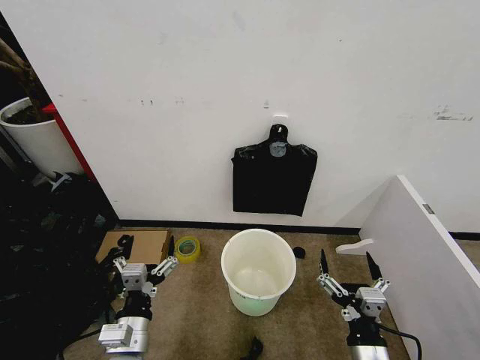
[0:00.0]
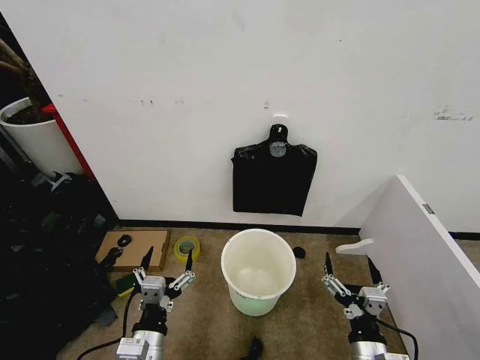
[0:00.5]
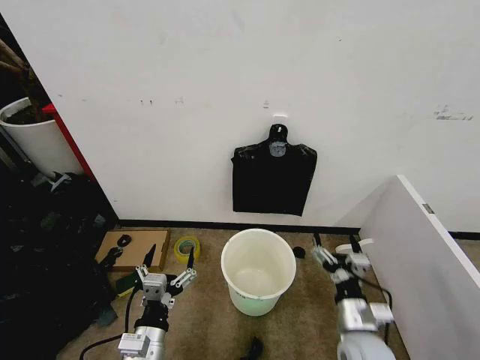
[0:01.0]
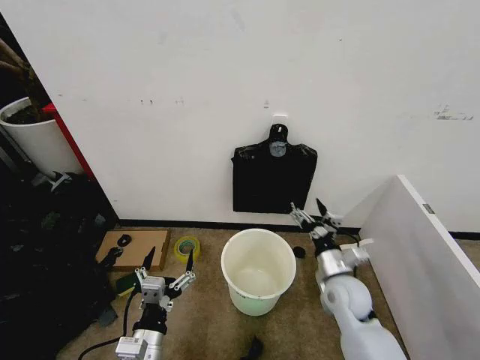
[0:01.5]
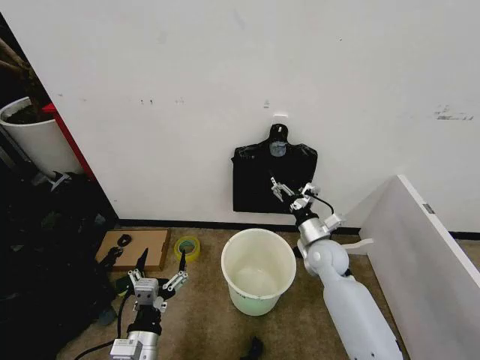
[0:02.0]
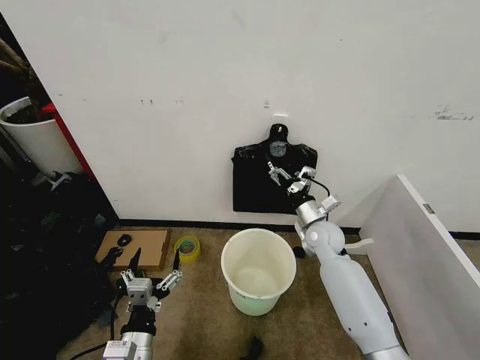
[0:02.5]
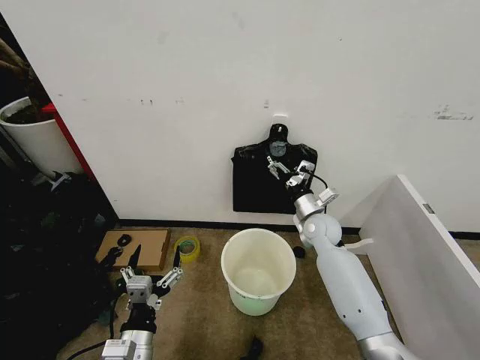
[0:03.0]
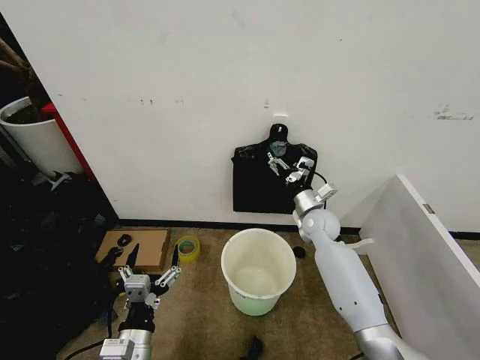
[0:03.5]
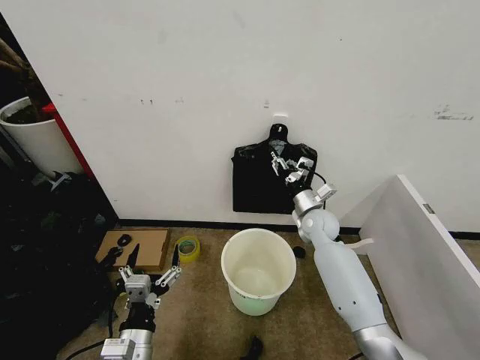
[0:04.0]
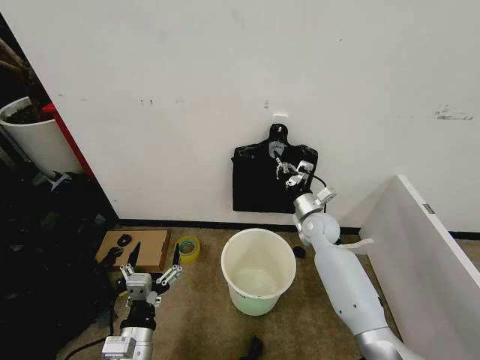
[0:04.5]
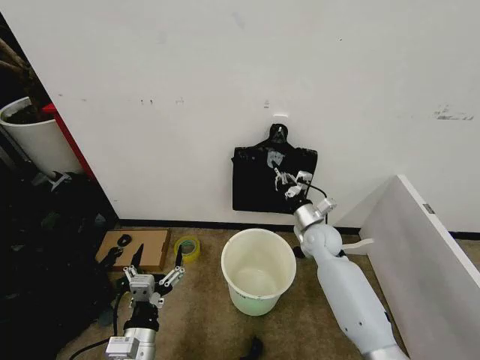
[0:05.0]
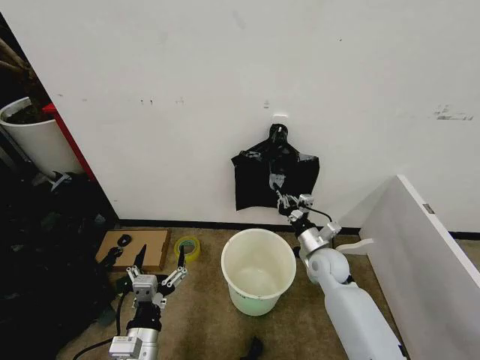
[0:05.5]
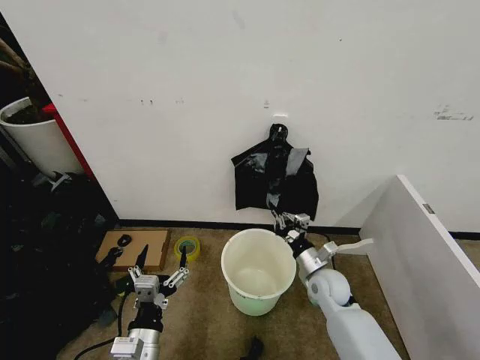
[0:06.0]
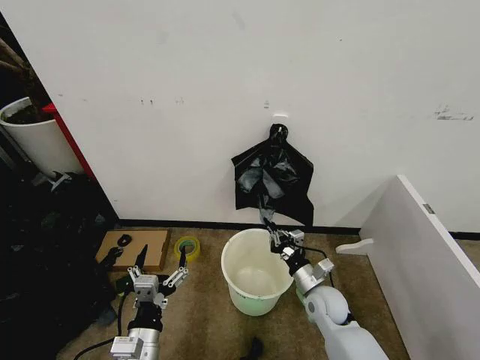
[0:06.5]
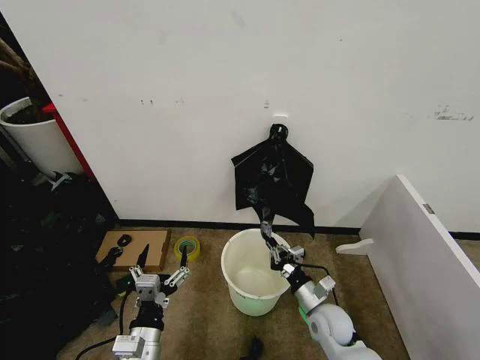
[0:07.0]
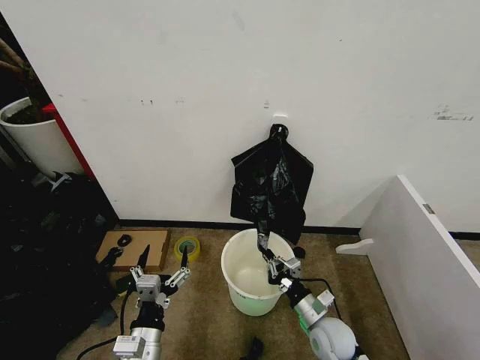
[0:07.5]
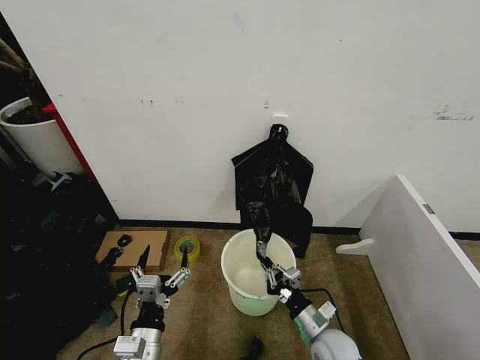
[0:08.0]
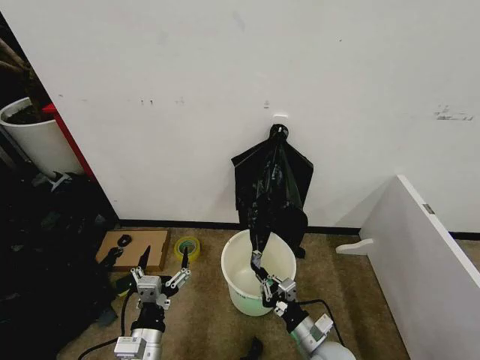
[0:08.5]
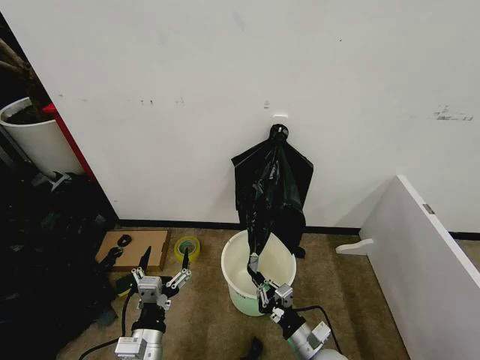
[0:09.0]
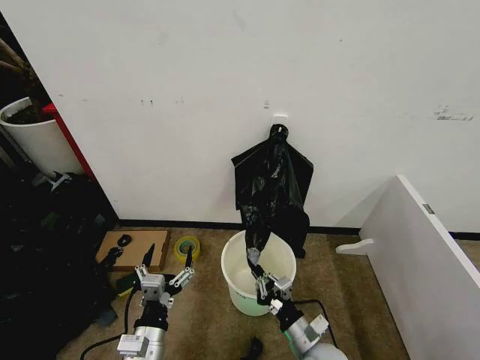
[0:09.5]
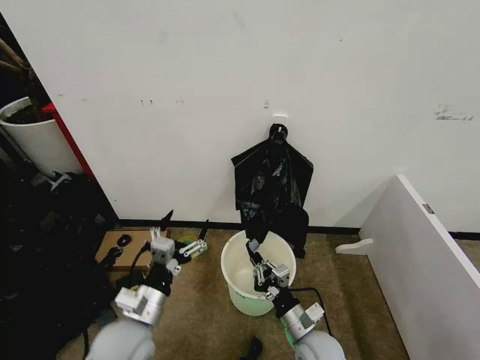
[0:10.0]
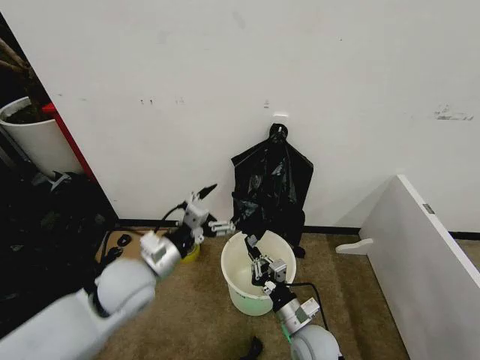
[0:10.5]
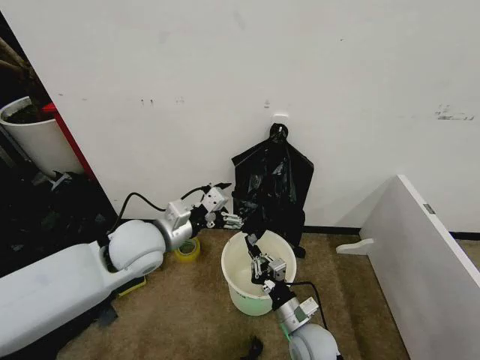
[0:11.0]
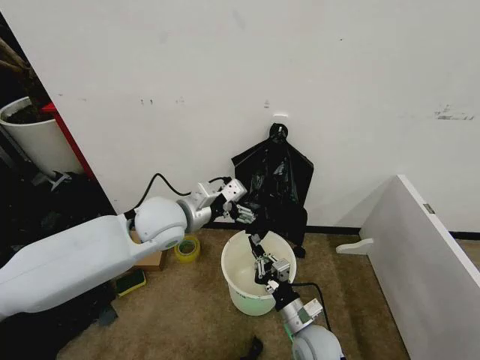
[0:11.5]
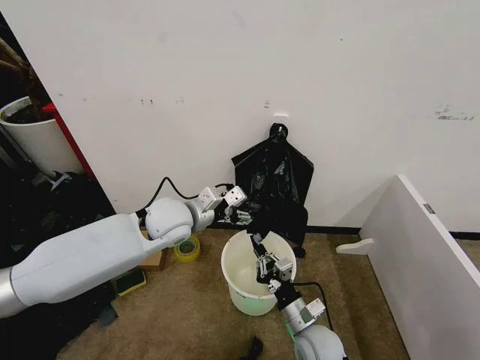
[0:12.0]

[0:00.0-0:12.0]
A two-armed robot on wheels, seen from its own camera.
Task of the whole recording: Place the garbage bag over the trash bin.
0:02.0 to 0:04.0: The right gripper travels forward by roughly 10 cm, and closes up.
0:04.0 to 0:06.0: The right gripper travels backward and downward by roughly 15 cm, and closes up.
0:06.0 to 0:08.0: The right gripper is displaced backward by about 15 cm.
0:08.0 to 0:10.0: The right gripper moves approximately 5 cm. The left gripper is displaced upward and forward by some 10 cm.
0:10.0 to 0:12.0: The left gripper goes some 25 cm forward and upward.

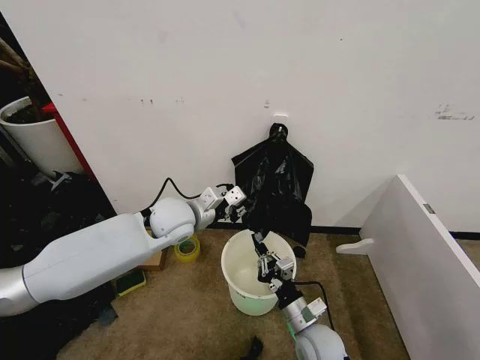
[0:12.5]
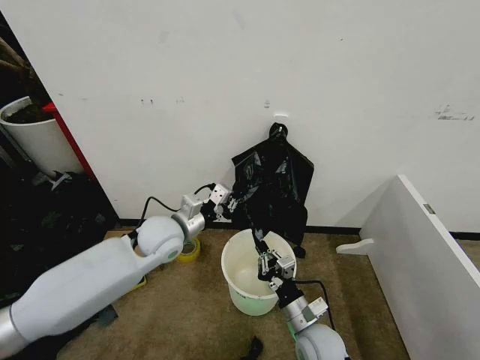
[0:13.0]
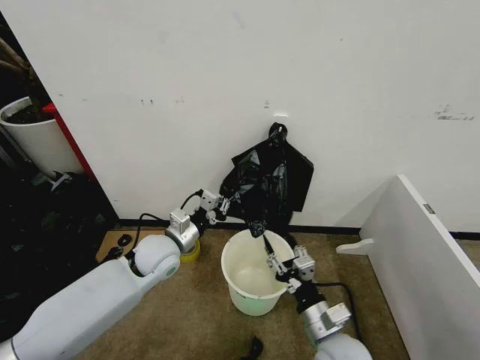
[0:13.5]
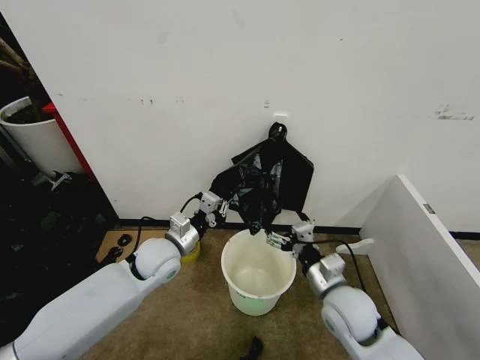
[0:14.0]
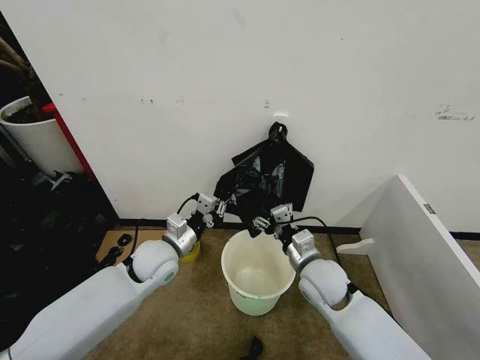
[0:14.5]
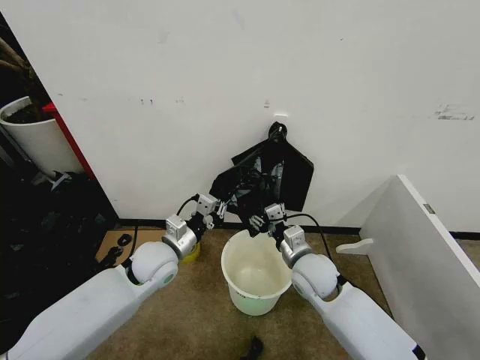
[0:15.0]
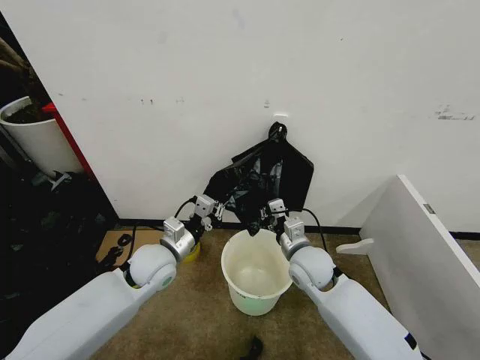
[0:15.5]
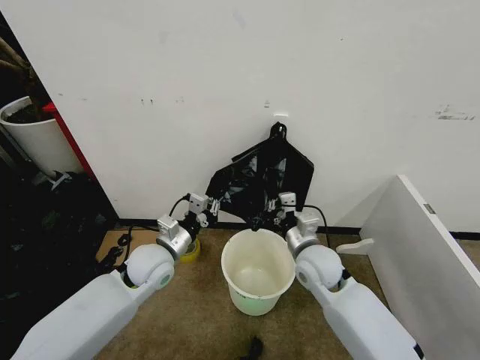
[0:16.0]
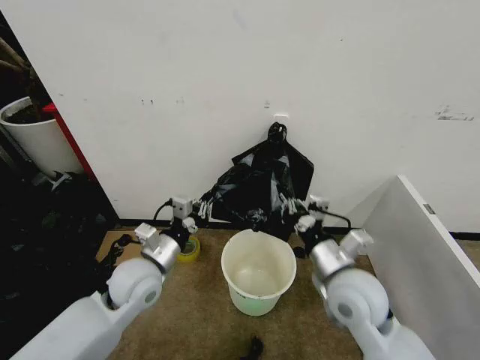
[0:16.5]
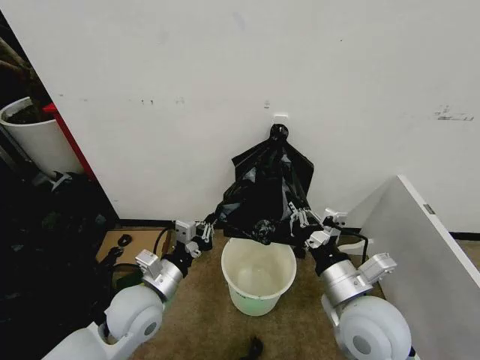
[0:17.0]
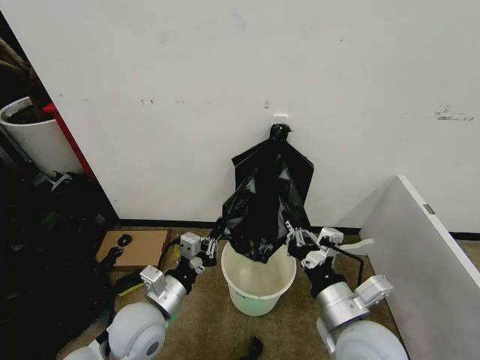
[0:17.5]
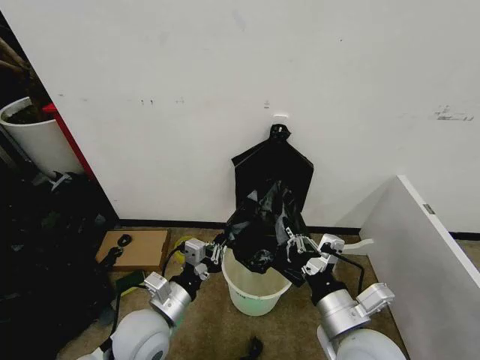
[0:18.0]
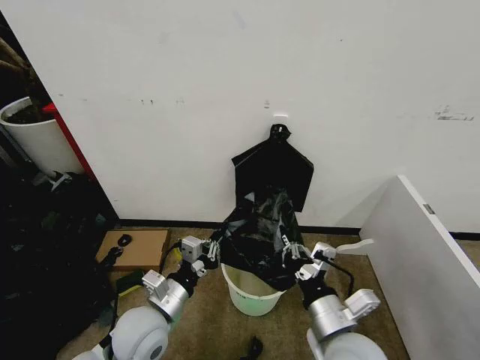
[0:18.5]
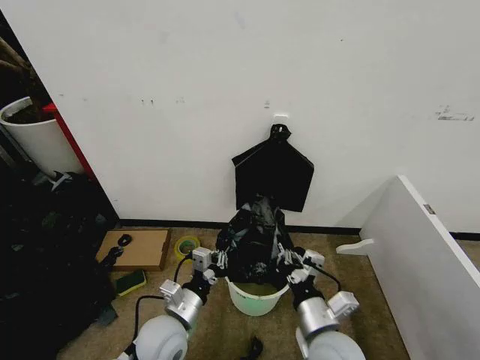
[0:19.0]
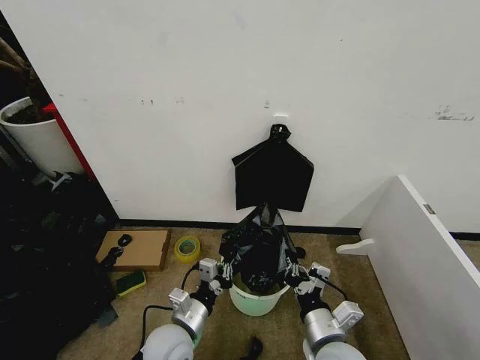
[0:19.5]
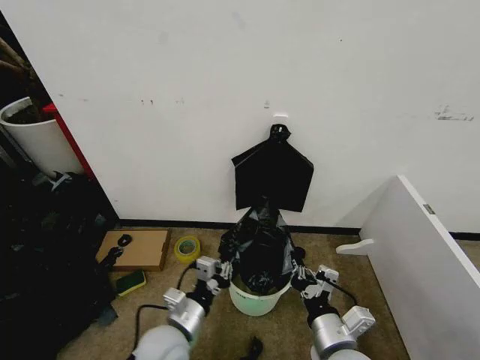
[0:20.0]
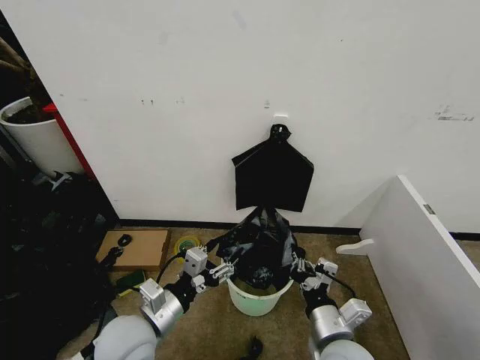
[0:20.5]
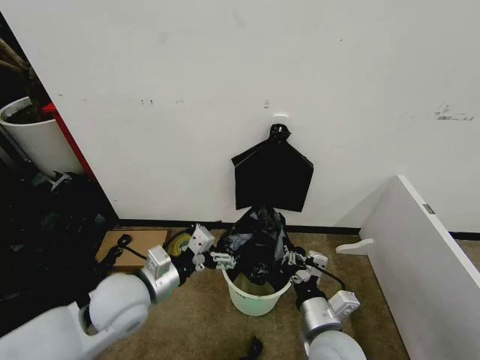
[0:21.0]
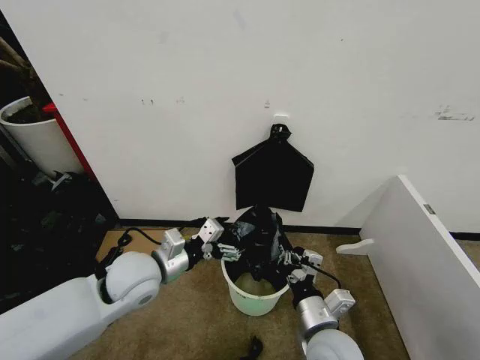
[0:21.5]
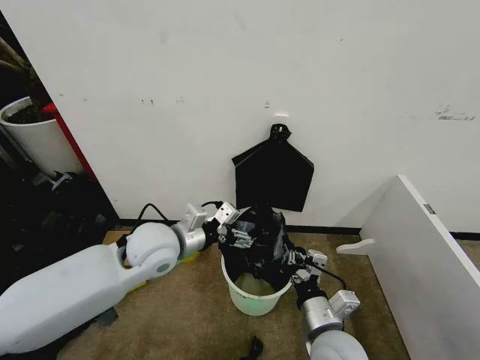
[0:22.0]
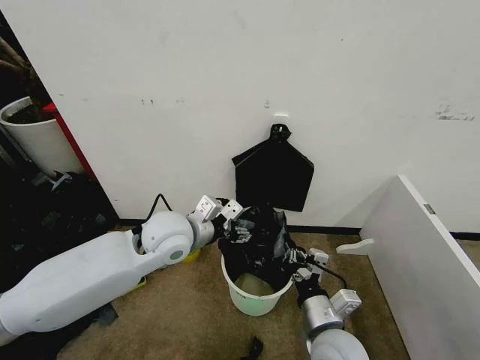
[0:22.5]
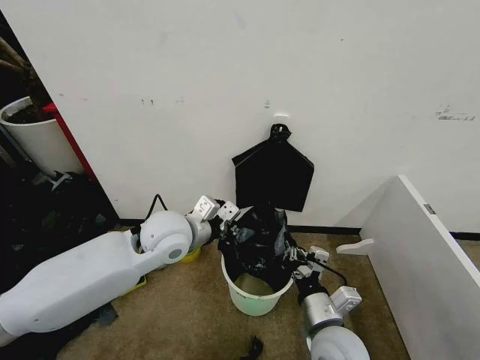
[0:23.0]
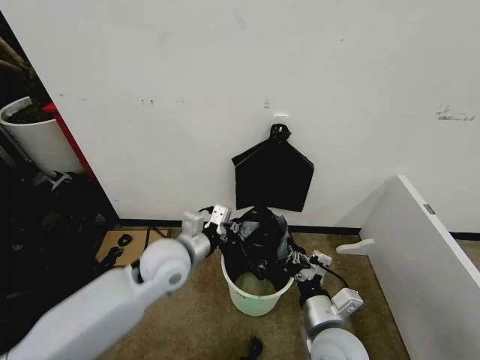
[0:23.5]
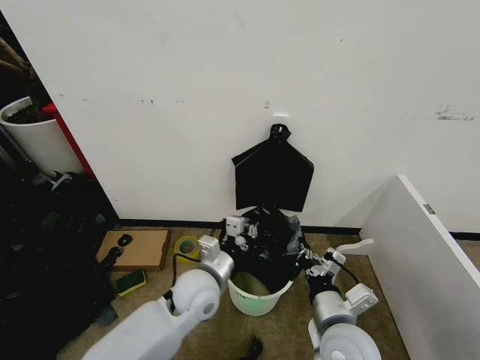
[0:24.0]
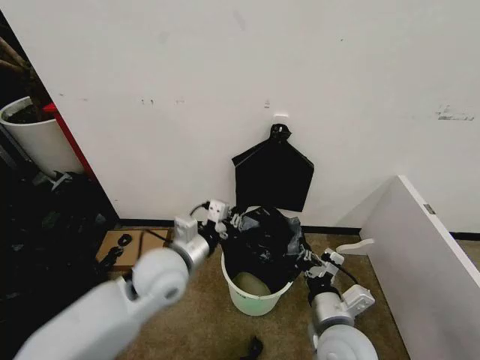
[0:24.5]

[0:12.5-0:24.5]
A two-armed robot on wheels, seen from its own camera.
Task of the whole recording: Place the garbage bag over the trash bin.
0:12.5 to 0:14.5: The left gripper moves downward and backward, about 10 cm; the right gripper goes about 15 cm upward and forward, and opens up.
0:14.5 to 0:16.5: The right gripper goes roughly 10 cm upward and backward, and closes up. Meanwhile the left gripper shifts roughly 5 cm backward.
0:16.5 to 0:18.5: The two grippers go approximately 10 cm backward.
0:18.5 to 0:20.5: The left gripper goes downward and returns, roughly 5 cm each way, and opens, while the right gripper goes roughly 5 cm downward.
0:20.5 to 0:22.5: The left gripper heads forward and upward, covering some 20 cm.
0:22.5 to 0:24.5: The left gripper goes roughly 5 cm backward, goes downward and returns, some 10 cm each way, and closes.

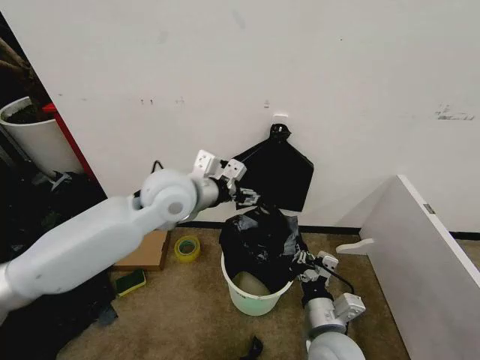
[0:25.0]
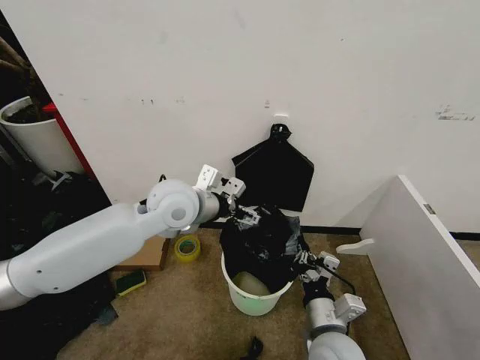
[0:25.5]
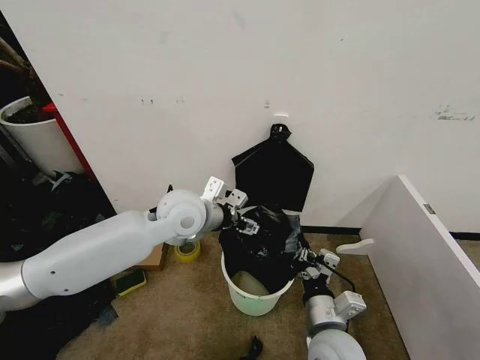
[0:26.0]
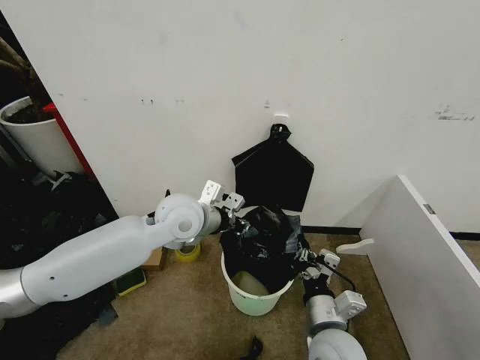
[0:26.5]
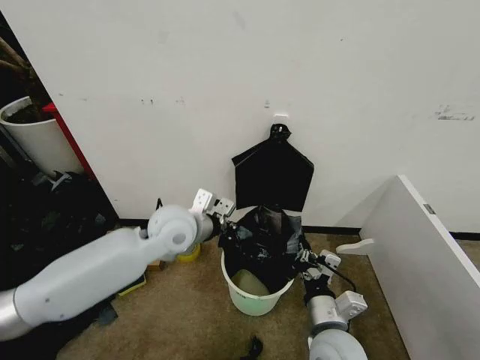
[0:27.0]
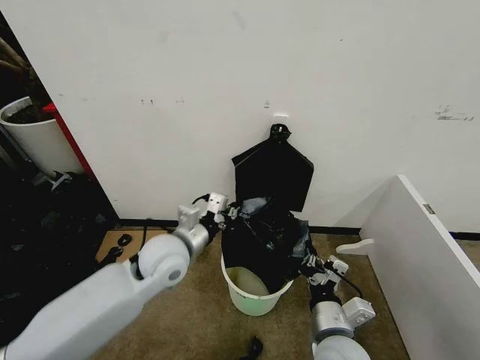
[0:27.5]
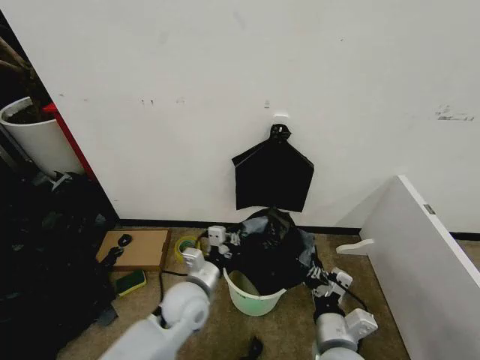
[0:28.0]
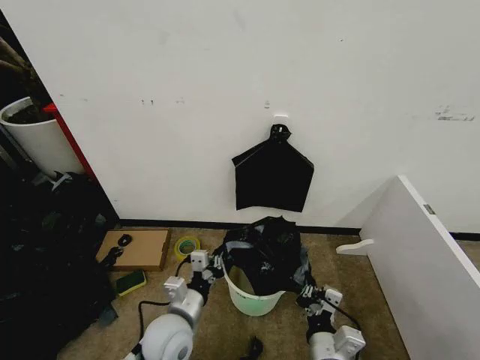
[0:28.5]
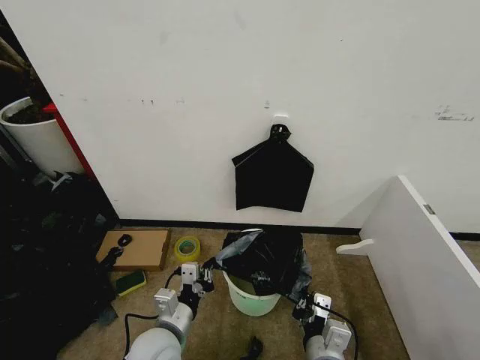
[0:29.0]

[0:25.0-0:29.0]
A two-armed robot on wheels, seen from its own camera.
Task of the whole recording: Place the garbage bag over the trash bin.
0:25.0 to 0:27.0: The left gripper is displaced downward by some 10 cm, and closes its fingers.
0:27.0 to 0:29.0: The right gripper goes some 5 cm backward; the left gripper moves backward and downward, roughly 25 cm.
